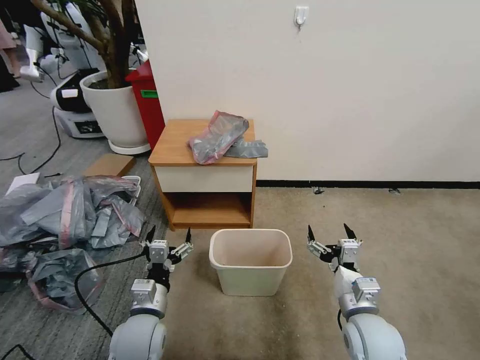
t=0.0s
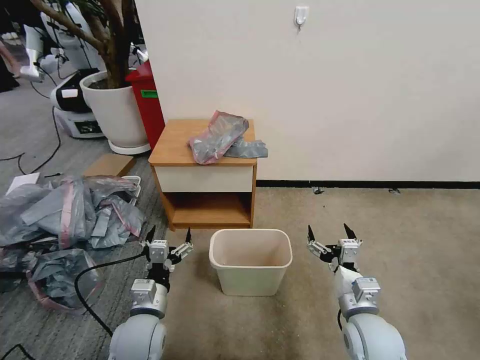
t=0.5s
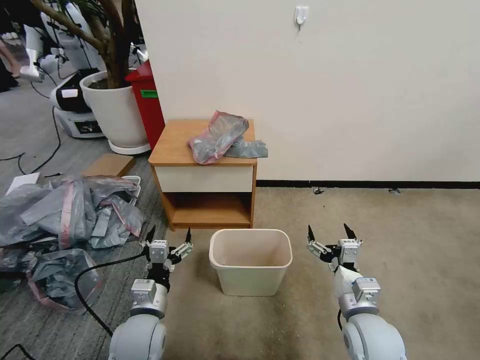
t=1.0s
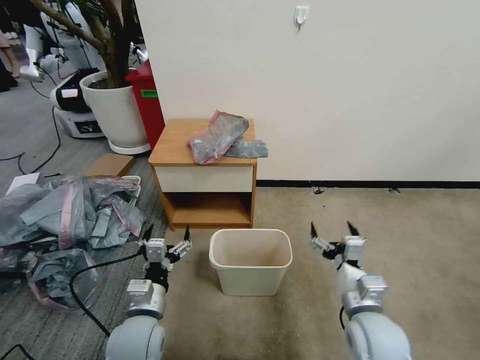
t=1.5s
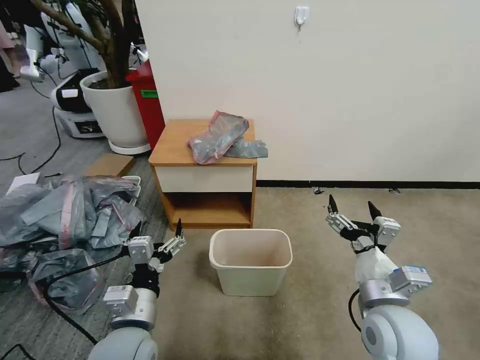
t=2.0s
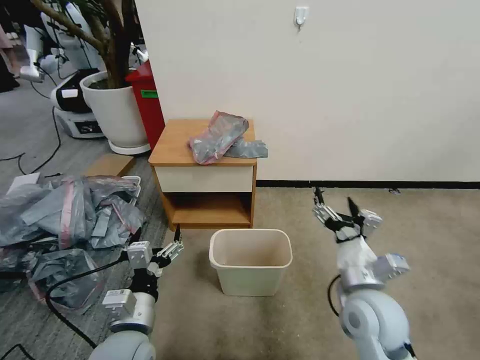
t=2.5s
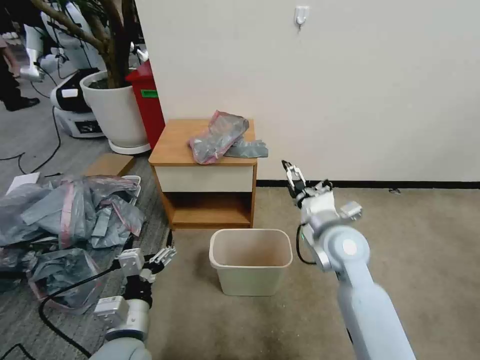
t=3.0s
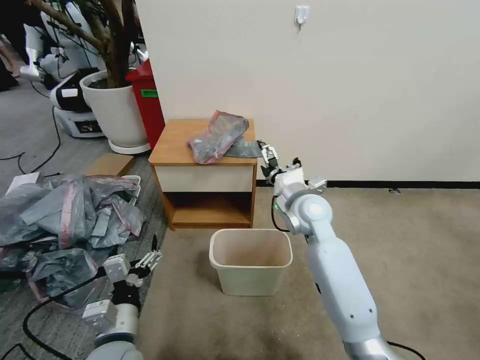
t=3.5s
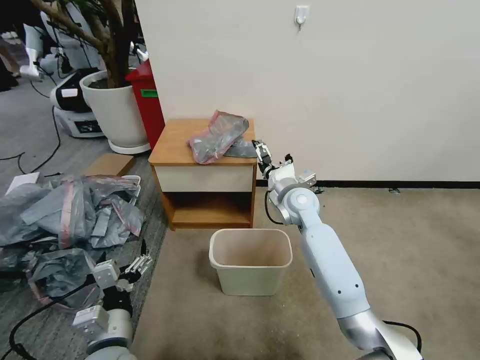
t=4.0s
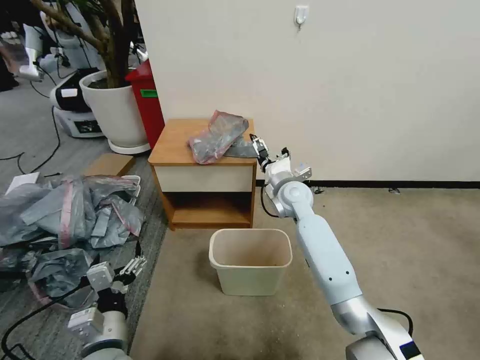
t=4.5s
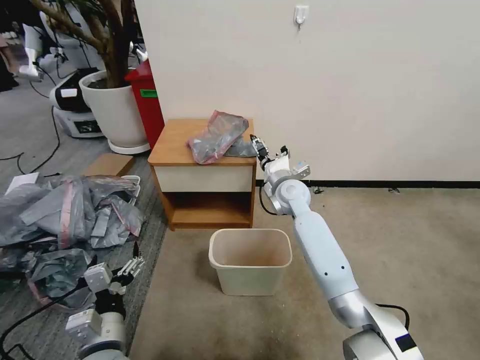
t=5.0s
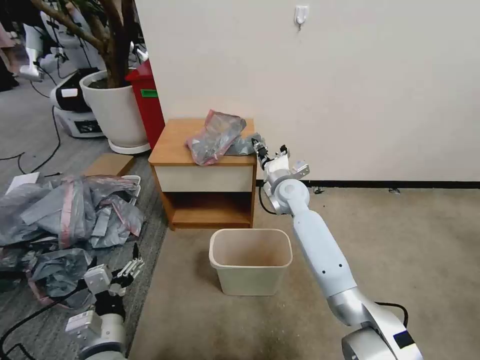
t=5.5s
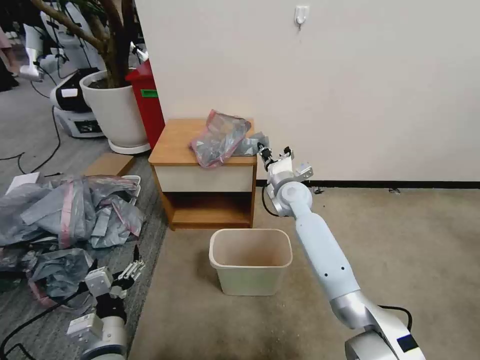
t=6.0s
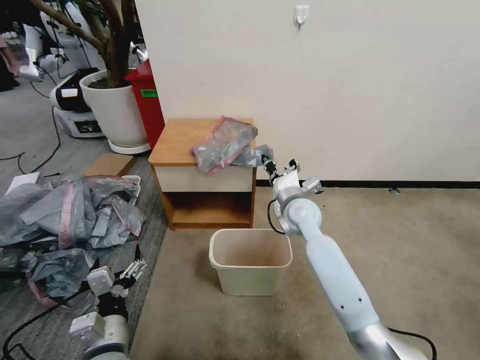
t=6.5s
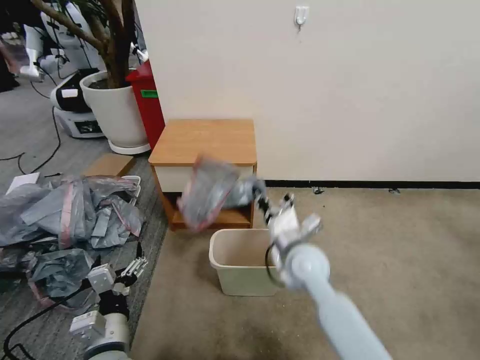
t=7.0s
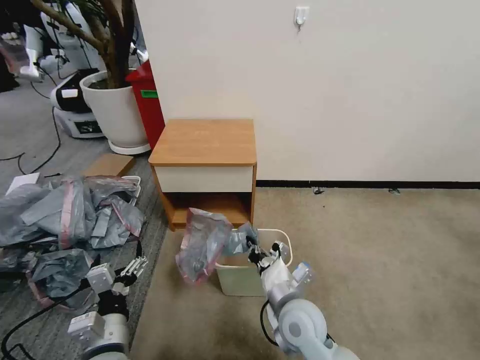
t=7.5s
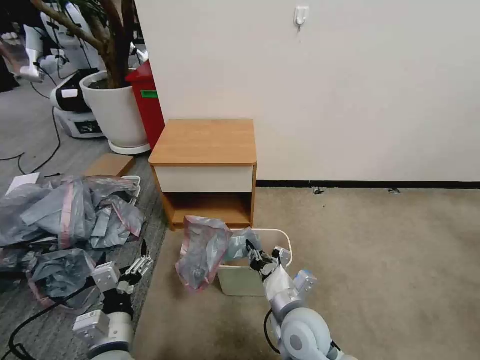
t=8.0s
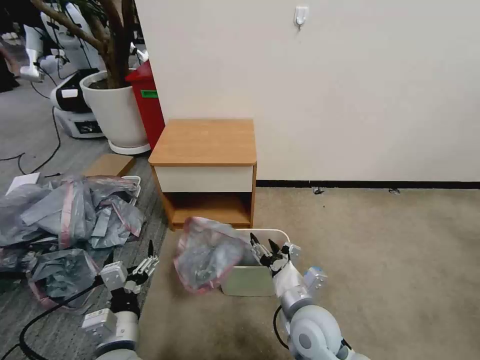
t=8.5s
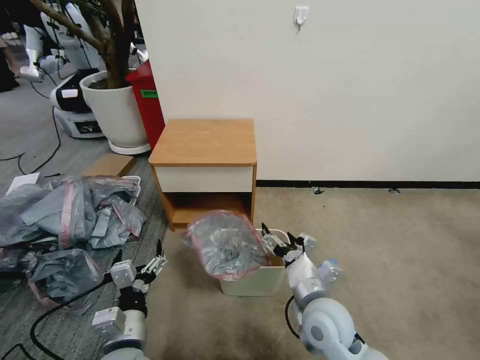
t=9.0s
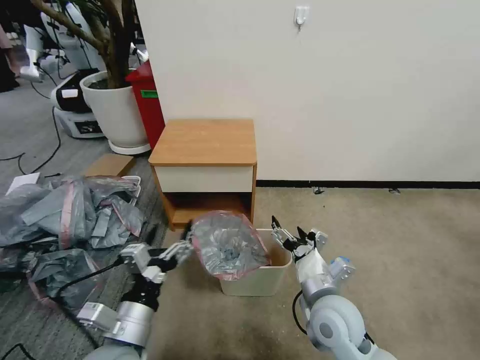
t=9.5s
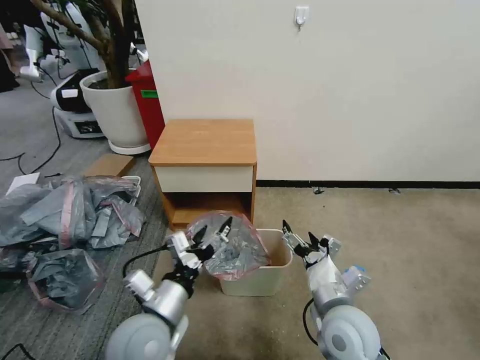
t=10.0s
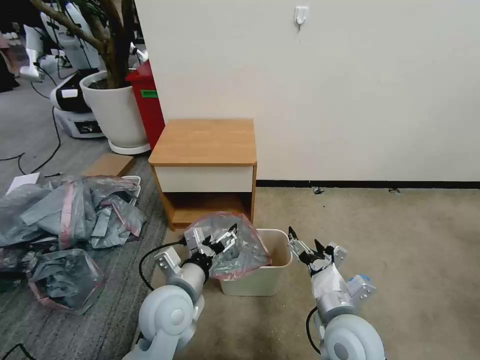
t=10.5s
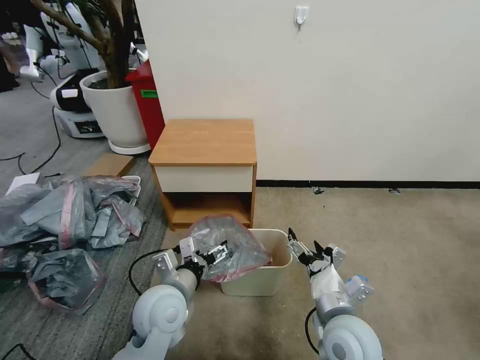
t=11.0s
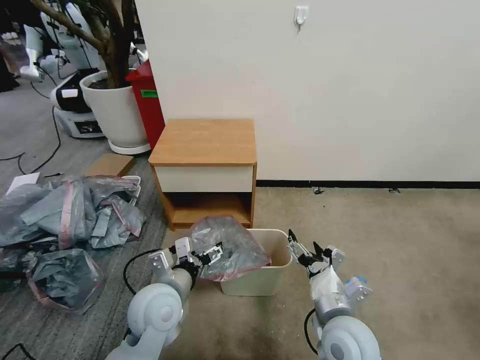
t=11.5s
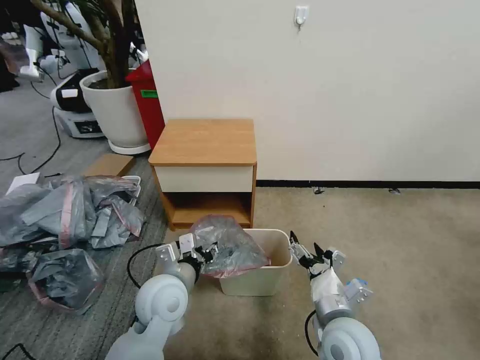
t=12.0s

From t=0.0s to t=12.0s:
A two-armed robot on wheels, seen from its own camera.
Task of the whole recording: Pick up the garbage bag from the table and place it over the trash can.
From t=2.0s to t=4.0s: The left gripper shifts by roughly 5 cm. The right gripper goes approximately 30 cm forward.
From t=4.0s to t=6.0s: The right gripper closes up.
From t=6.0s to t=8.0s: The right gripper goes some 30 cm backward.
From t=8.0s to t=10.0s: The grippers both shift to the right by approximately 5 cm. The right gripper opens.
From t=10.0s to t=12.0s: The left gripper shifts some 10 cm forward, and closes.

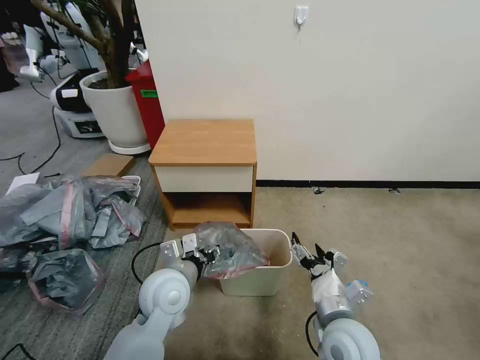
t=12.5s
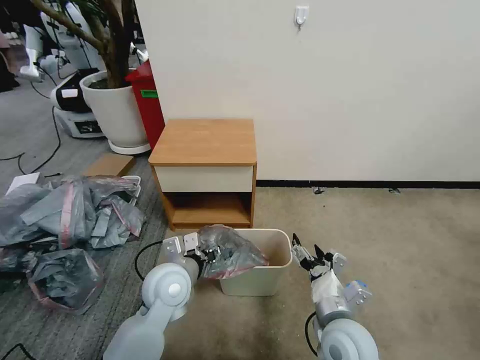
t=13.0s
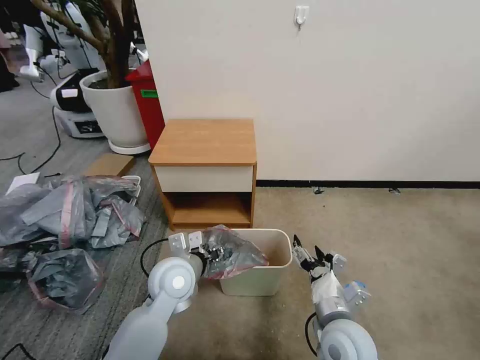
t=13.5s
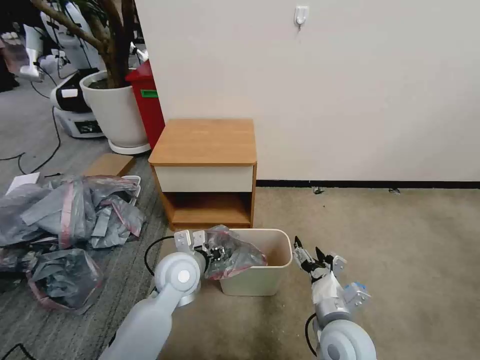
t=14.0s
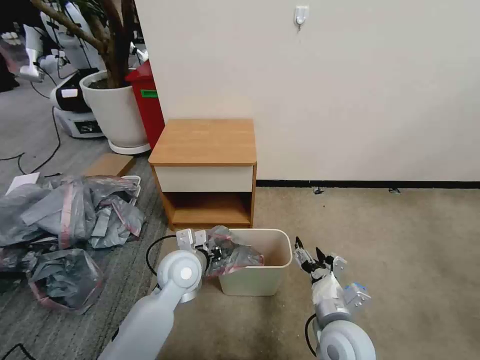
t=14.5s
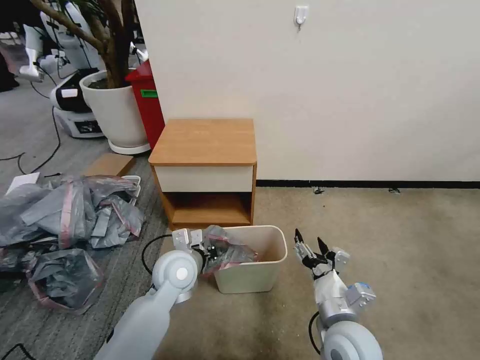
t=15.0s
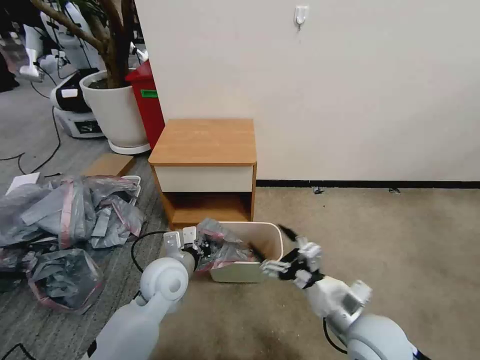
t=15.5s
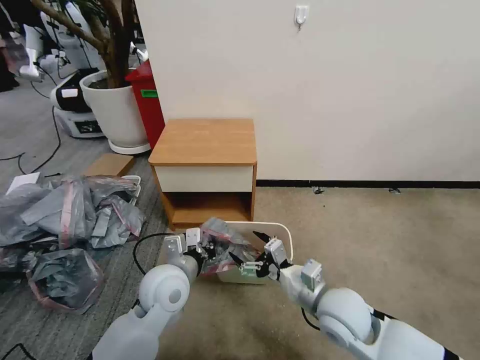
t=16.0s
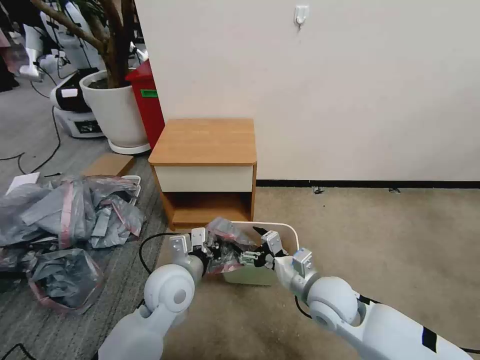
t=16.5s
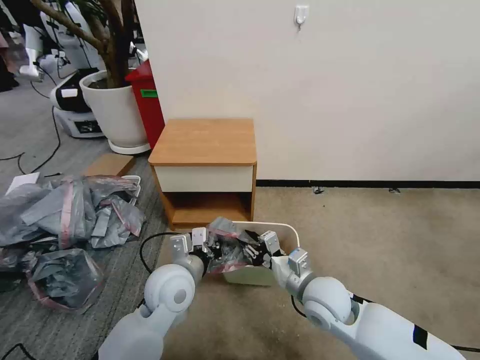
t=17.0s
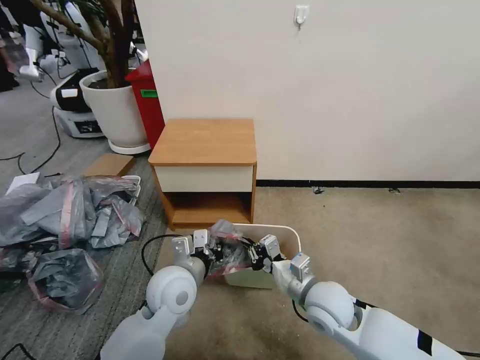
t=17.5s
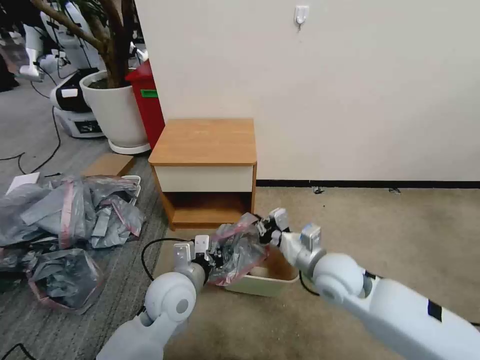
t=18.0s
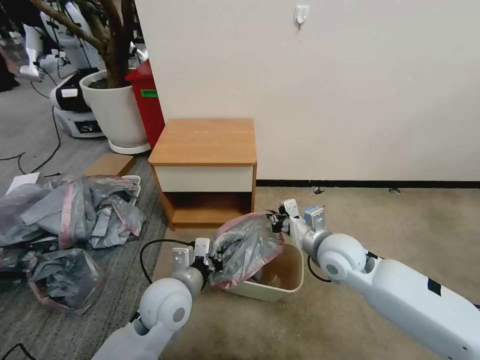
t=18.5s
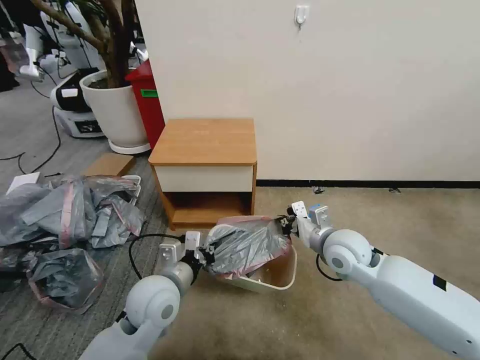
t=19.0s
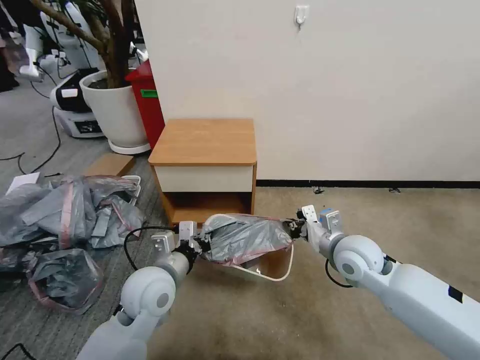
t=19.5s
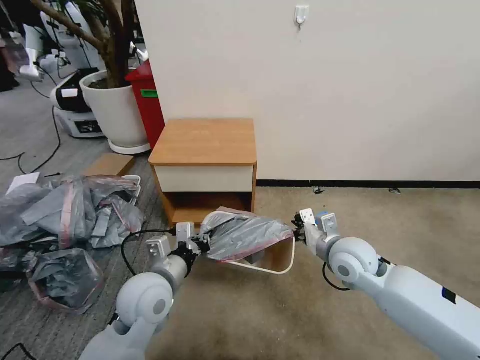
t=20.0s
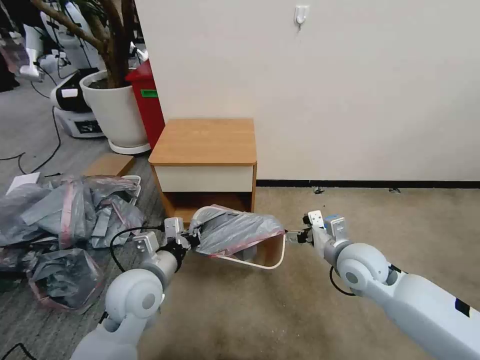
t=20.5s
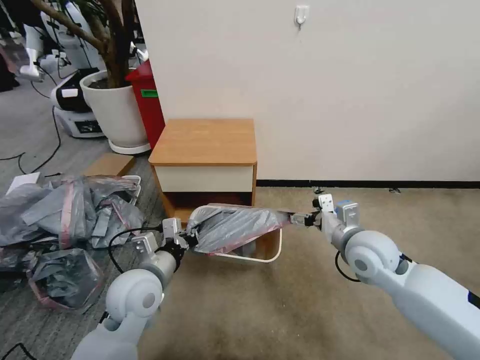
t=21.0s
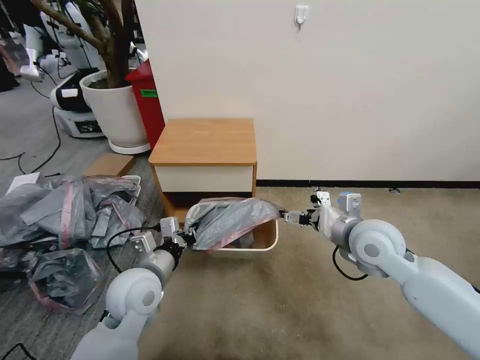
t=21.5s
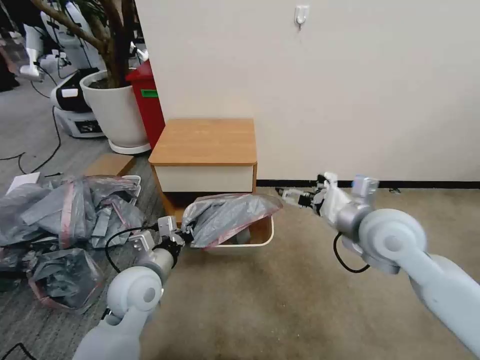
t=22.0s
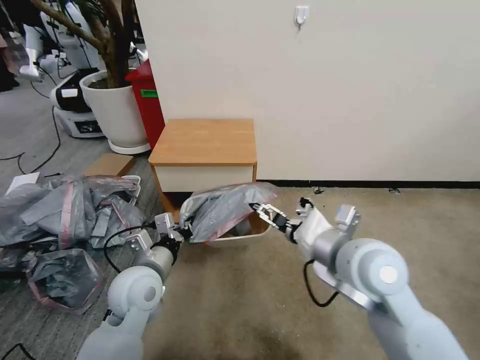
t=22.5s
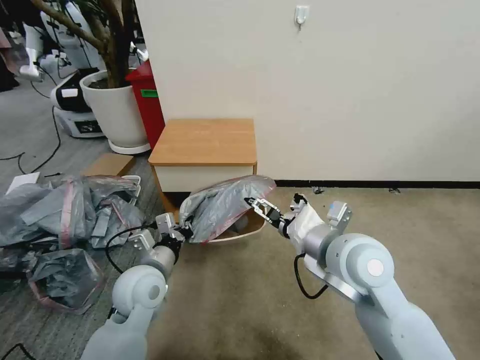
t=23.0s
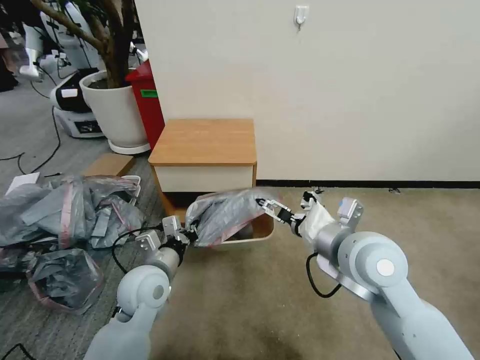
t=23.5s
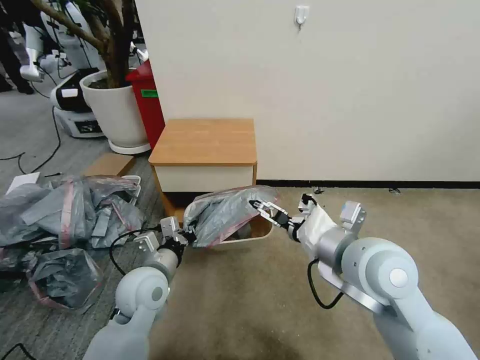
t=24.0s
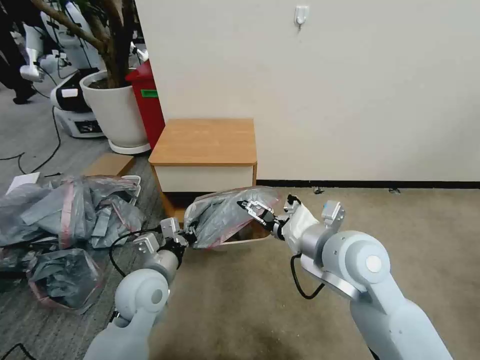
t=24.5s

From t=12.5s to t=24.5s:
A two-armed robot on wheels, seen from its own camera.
Task of the whole recording: Pick up the garbage bag from the table and place it over the trash can.
From t=12.5s to t=14.5s: The left gripper travels forward by about 5 cm.
From t=14.5s to t=16.5s: The left gripper moves roughly 5 cm. The right gripper travels forward by approximately 10 cm.
From t=16.5s to t=18.5s: The right gripper travels forward and upward by some 10 cm, and closes its fingers.
From t=18.5s to t=20.5s: The left gripper shifts some 5 cm to the left. Meanwhile the right gripper opens up.
From t=20.5s to t=22.5s: The right gripper is displaced upward, to the left and backward by some 15 cm.
From t=22.5s to t=24.5s: The grippers make only small movements.

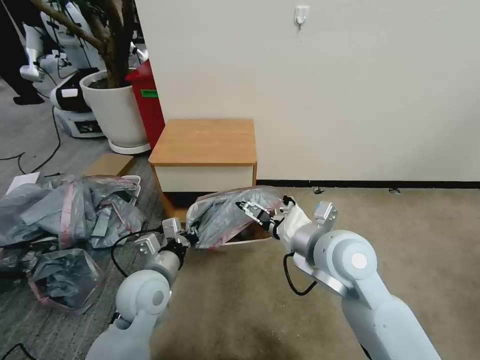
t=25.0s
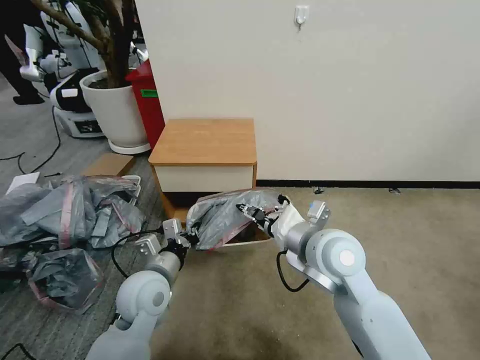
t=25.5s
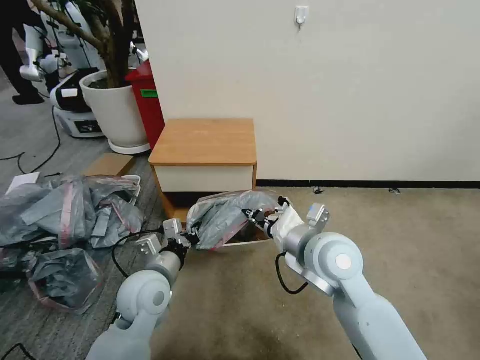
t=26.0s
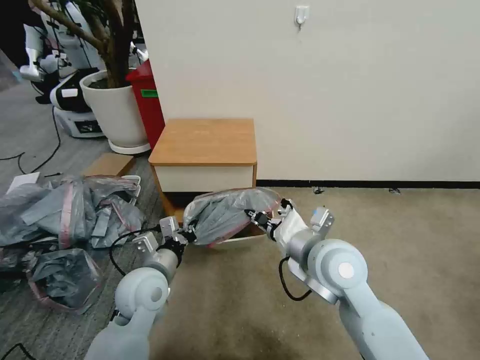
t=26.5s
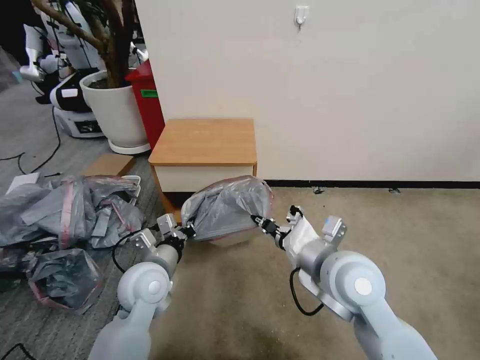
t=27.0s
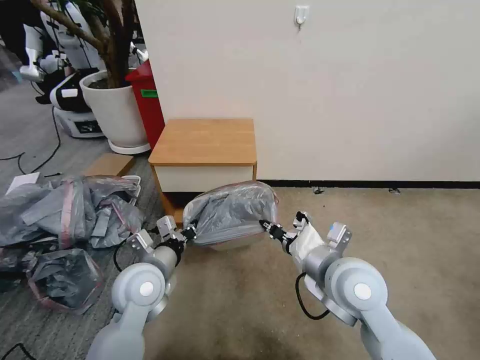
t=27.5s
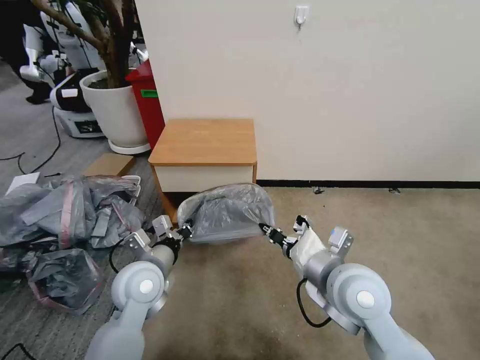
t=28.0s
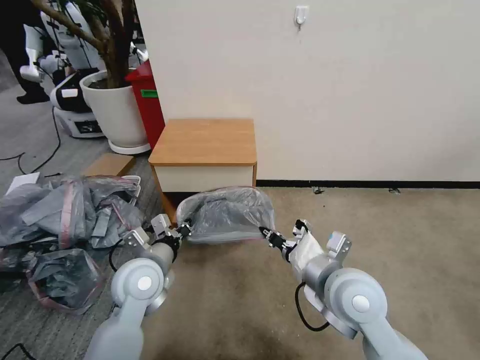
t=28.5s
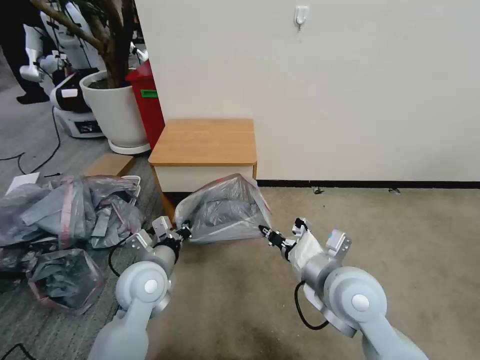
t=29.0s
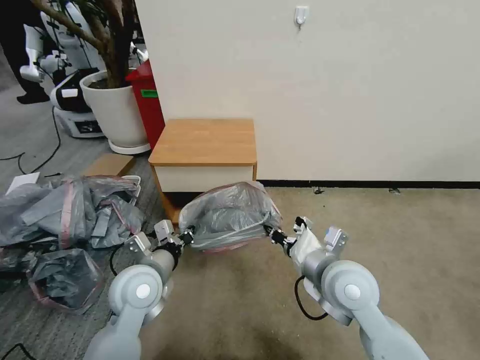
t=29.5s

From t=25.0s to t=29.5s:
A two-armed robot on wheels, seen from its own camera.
Task of the whole recording: Pick up the garbage bag from the table and place it over the trash can.
From t=25.0s to t=27.0s: The right gripper closes its fingers.
From t=27.0s to t=29.5s: There are only small adjustments of the grippers.
